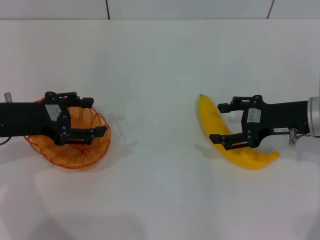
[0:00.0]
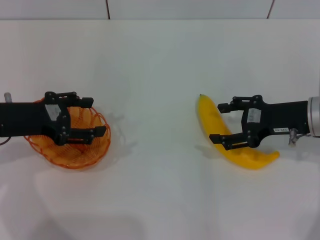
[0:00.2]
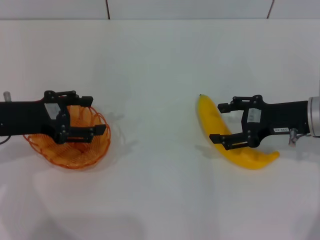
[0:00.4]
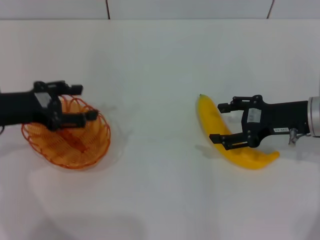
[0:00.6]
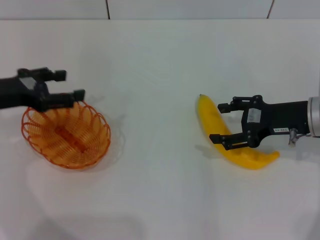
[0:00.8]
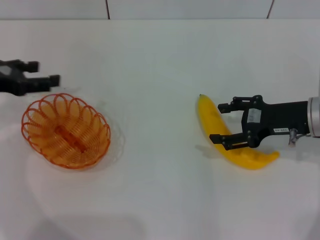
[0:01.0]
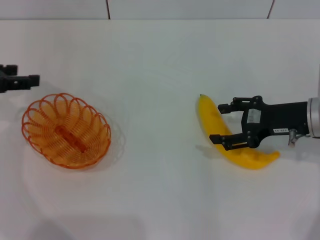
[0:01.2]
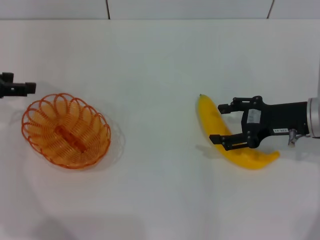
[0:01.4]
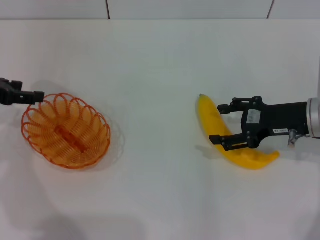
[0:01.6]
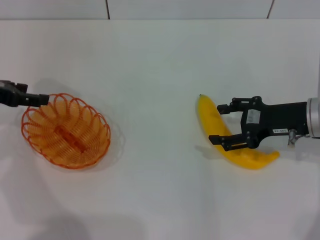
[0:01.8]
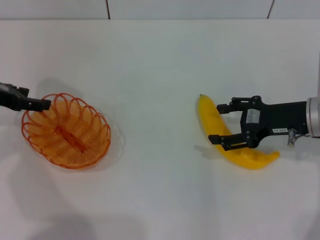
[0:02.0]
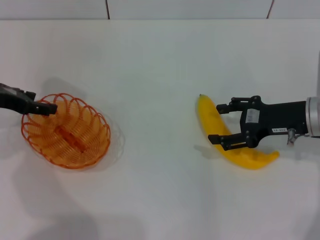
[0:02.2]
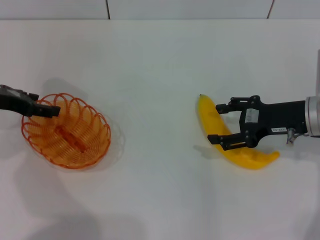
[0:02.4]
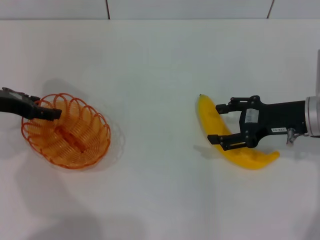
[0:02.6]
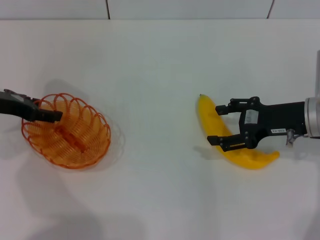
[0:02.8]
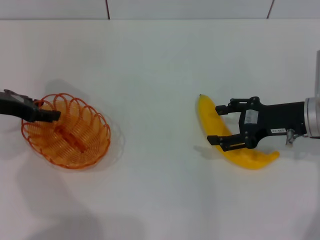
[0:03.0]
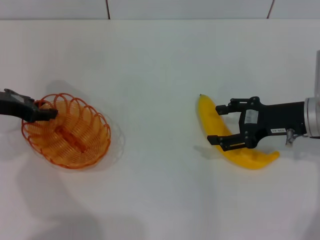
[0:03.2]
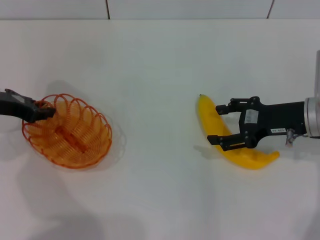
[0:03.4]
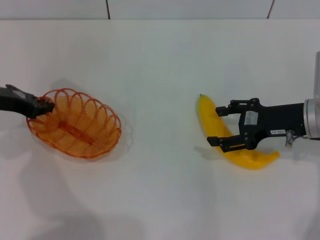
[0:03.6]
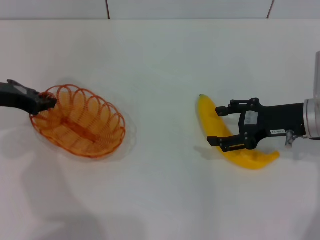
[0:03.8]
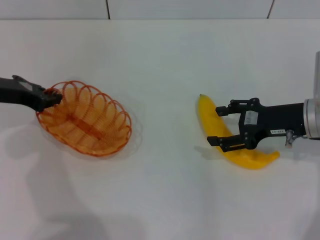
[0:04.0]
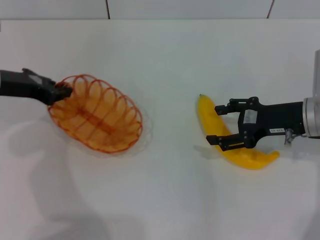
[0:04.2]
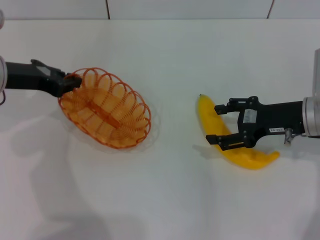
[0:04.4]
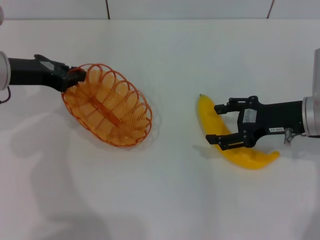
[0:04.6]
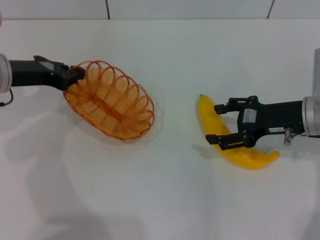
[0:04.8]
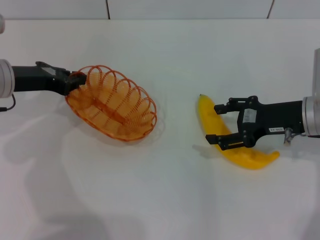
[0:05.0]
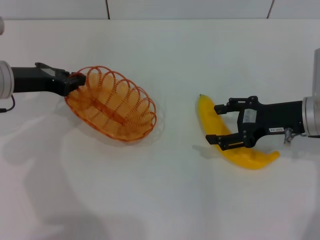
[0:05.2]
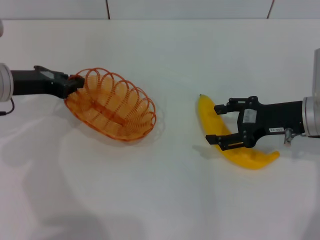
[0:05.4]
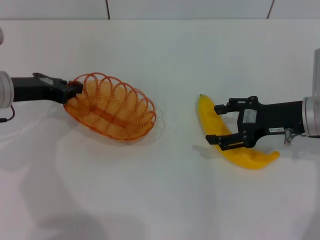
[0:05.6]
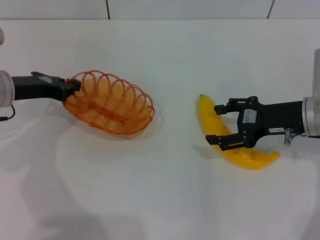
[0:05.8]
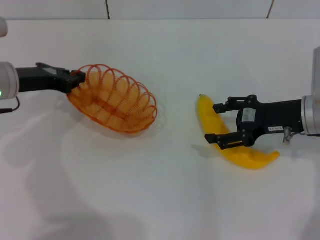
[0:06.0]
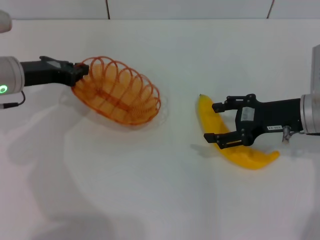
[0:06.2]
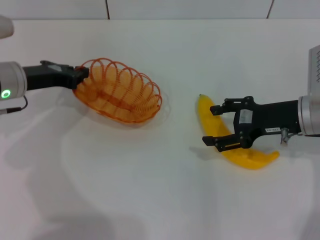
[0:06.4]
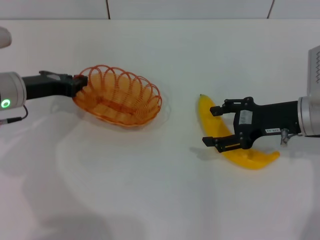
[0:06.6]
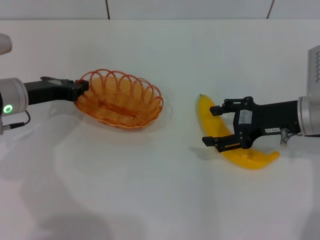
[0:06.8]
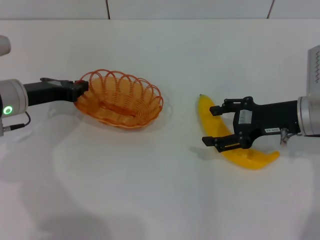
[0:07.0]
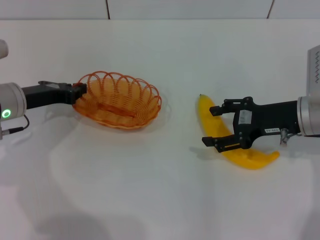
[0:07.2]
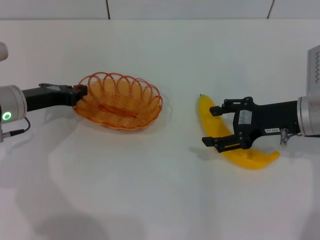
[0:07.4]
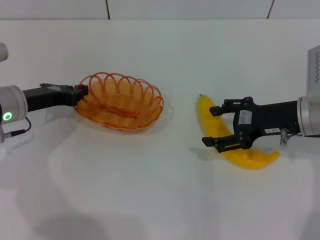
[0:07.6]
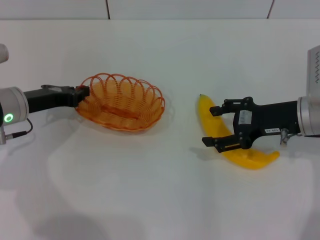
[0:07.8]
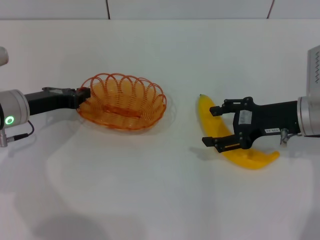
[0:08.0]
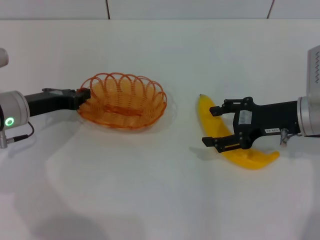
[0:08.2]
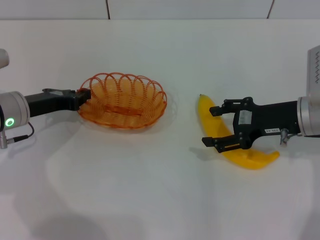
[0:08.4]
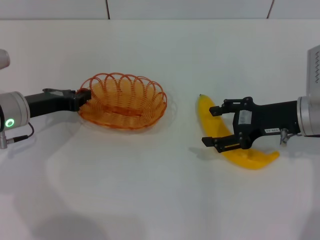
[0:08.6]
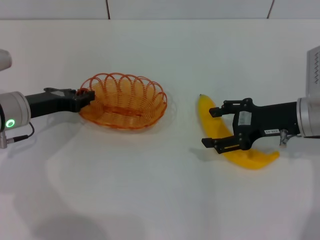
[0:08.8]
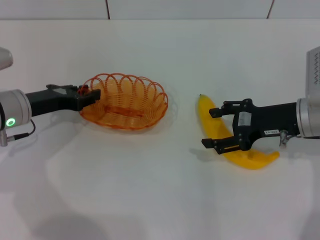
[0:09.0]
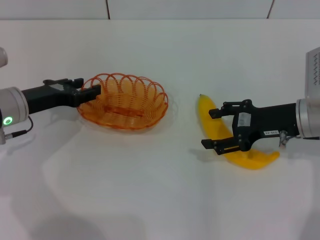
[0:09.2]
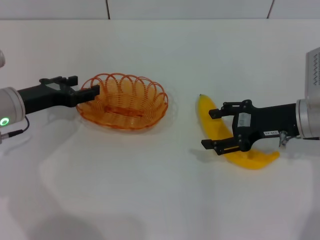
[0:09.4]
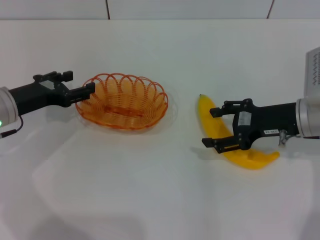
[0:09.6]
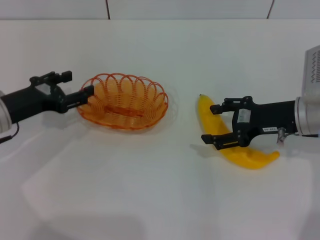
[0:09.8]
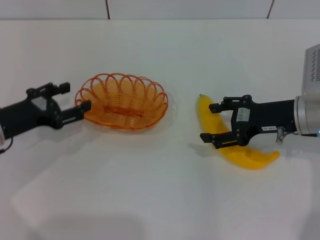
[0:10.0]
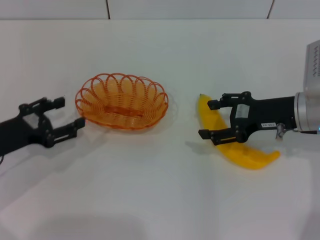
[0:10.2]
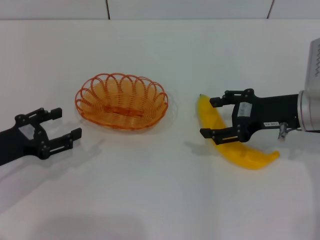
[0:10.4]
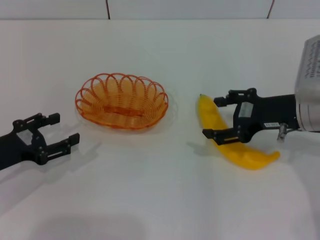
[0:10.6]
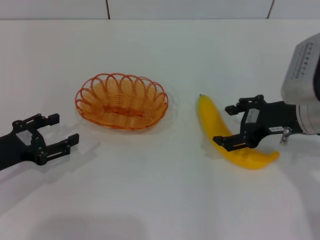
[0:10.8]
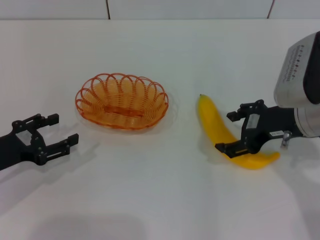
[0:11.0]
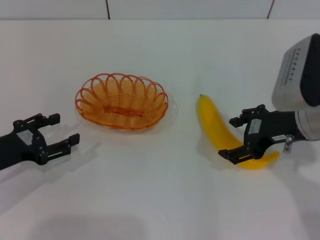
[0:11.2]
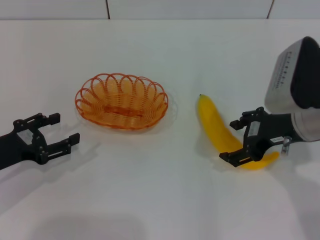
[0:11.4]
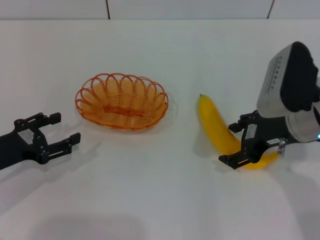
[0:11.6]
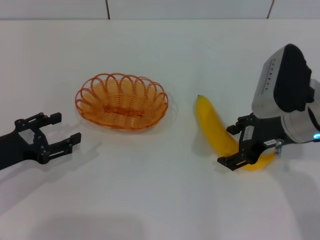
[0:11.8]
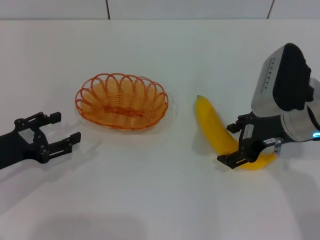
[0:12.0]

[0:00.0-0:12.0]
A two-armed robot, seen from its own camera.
Step, 0:00.0 to 0:04.0: Pick up the basket with the left gripper.
Step, 0:04.4 to 0:09.8: Place the basket in the center of view with the left gripper.
0:00.0 to 0:01.6: The left gripper goes approximately 5 cm to the left.
0:01.6 to 0:03.0: The grippers make only small movements.
0:03.0 to 0:04.4: The left gripper closes.
0:04.4 to 0:06.0: The grippers stay close to where they were, moving slightly.
0:06.0 to 0:09.0: There are only small adjustments of the grippers.
0:09.0 to 0:10.4: The left gripper goes some 10 cm backward and to the left, and opens its fingers.

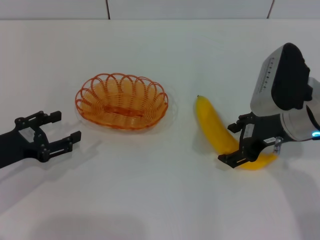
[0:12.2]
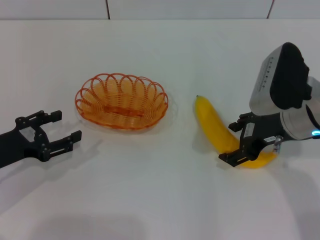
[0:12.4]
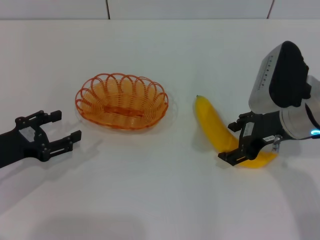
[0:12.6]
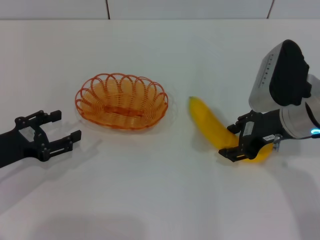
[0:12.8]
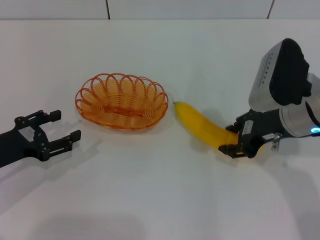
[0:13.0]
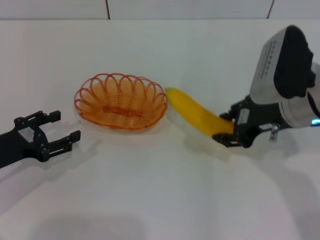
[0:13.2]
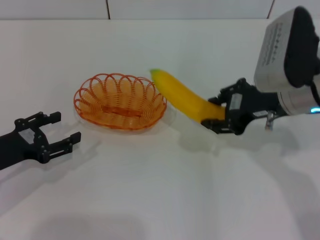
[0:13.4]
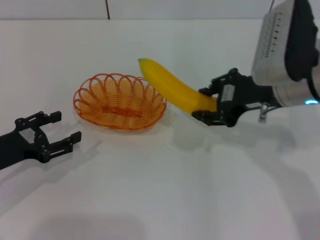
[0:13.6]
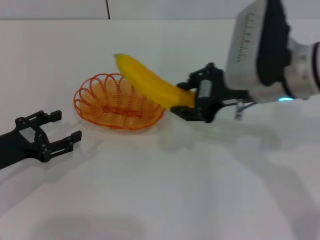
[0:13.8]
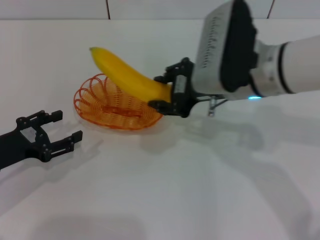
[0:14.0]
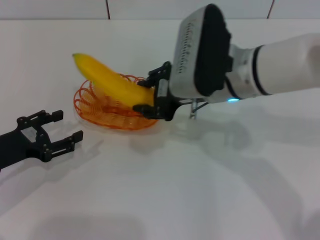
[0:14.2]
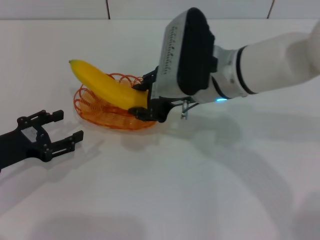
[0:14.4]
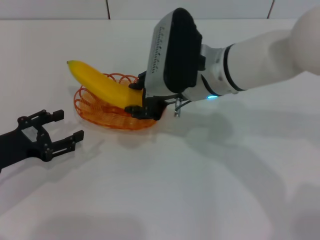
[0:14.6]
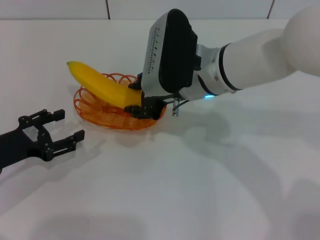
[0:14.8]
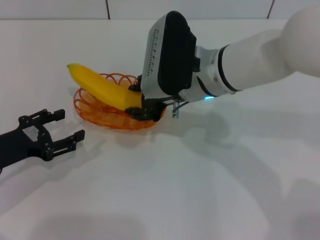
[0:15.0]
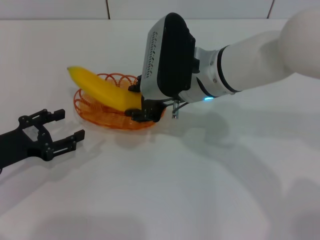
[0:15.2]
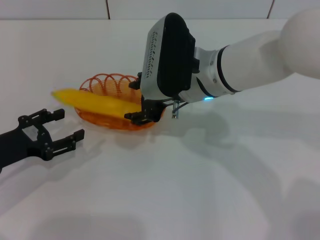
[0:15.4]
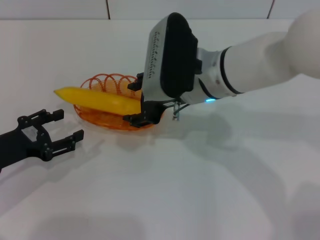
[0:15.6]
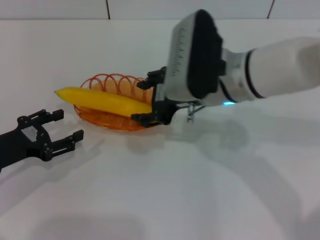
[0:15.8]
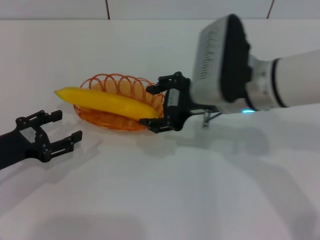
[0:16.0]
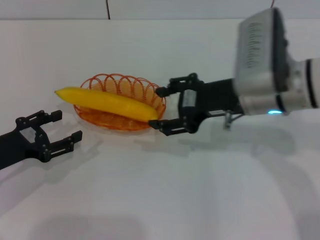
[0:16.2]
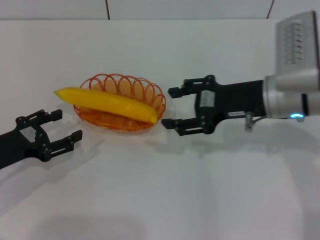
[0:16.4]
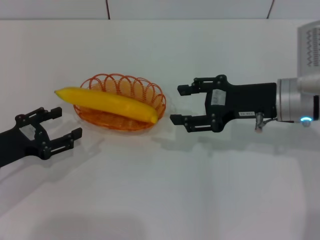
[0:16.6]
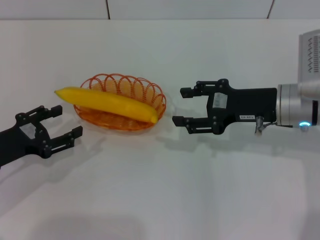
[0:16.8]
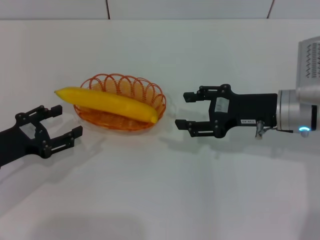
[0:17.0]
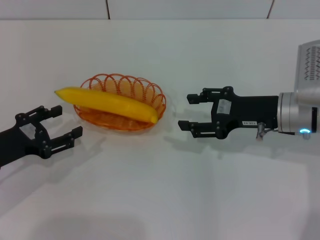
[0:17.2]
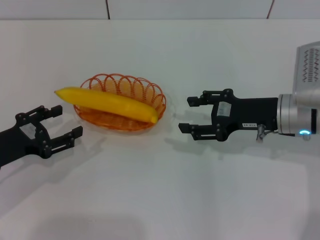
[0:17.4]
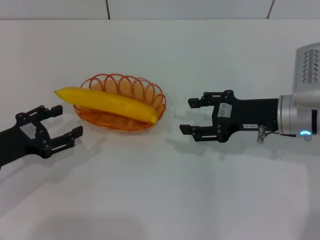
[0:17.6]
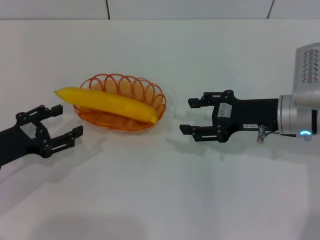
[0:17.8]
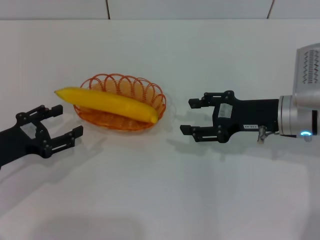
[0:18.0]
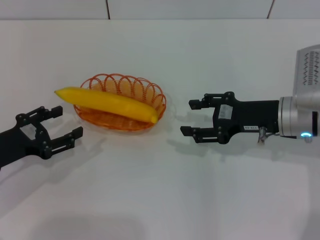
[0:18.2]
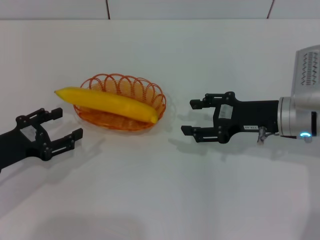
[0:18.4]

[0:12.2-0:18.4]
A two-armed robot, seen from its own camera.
Step, 0:13.8 to 0:16.2: Place the banana into the basket with the right gripper.
0:12.2 to 0:13.8: The right gripper travels to the left and upward by roughly 5 cm, and closes its fingers.
0:13.8 to 0:15.4: The right gripper travels to the left by some 10 cm, and opens.
0:15.4 to 0:16.8: The right gripper goes roughly 15 cm to the right.
0:16.8 to 0:18.4: There are only small adjustments of the grippers.
